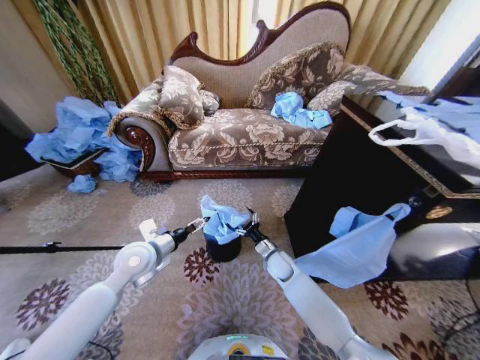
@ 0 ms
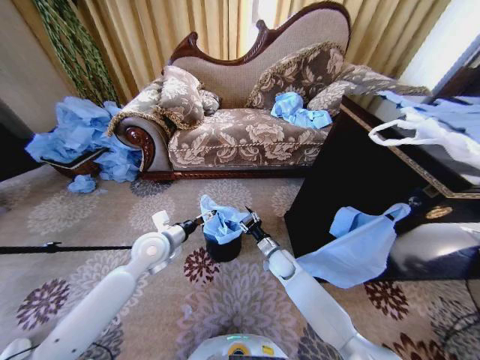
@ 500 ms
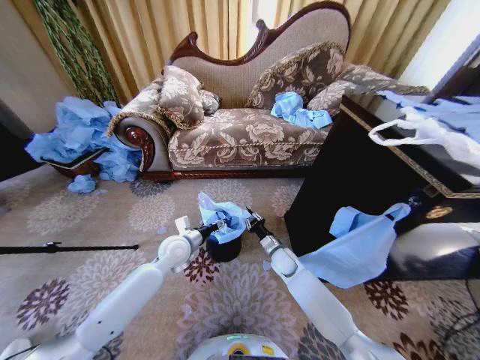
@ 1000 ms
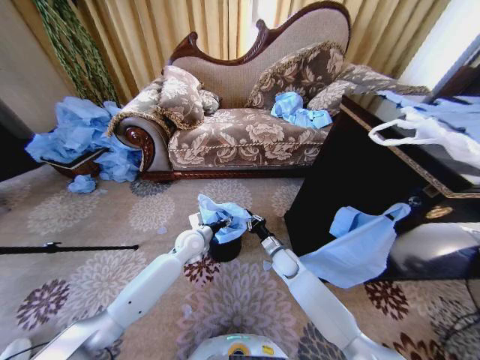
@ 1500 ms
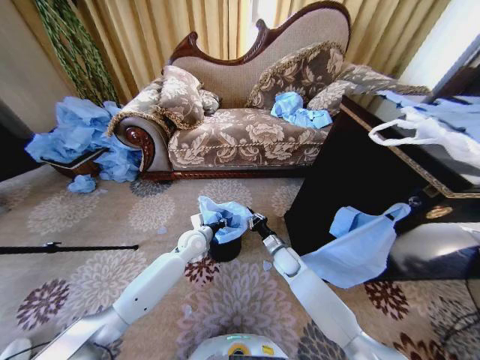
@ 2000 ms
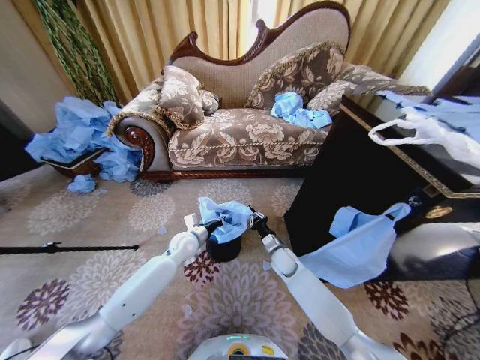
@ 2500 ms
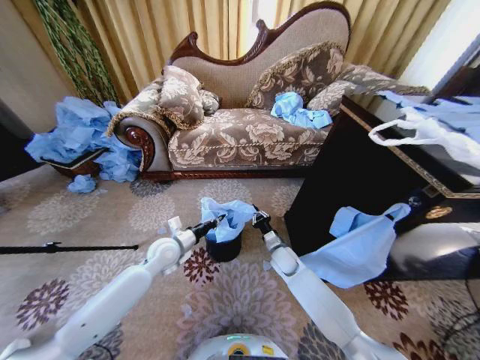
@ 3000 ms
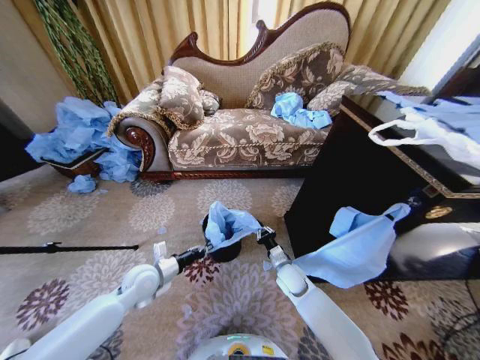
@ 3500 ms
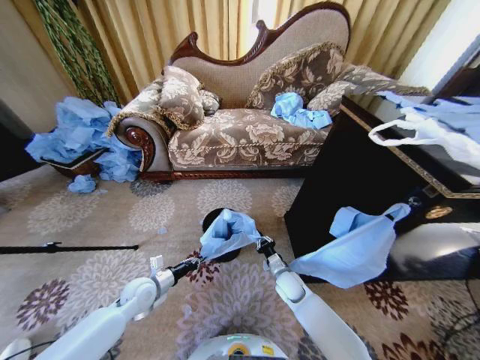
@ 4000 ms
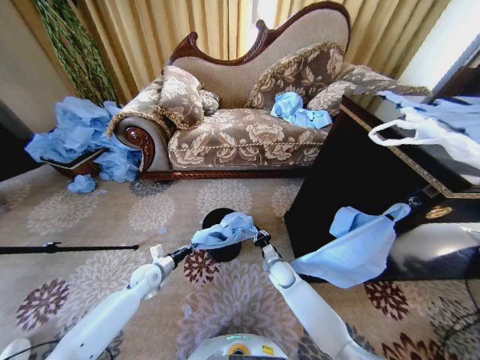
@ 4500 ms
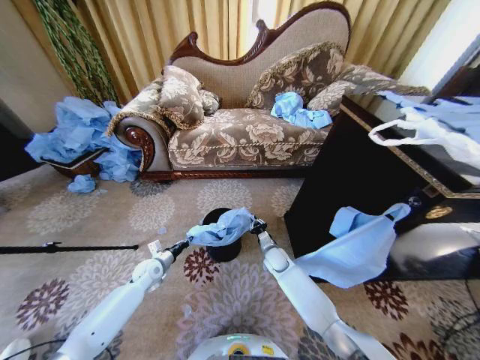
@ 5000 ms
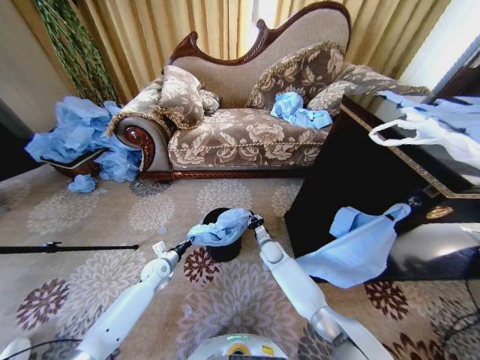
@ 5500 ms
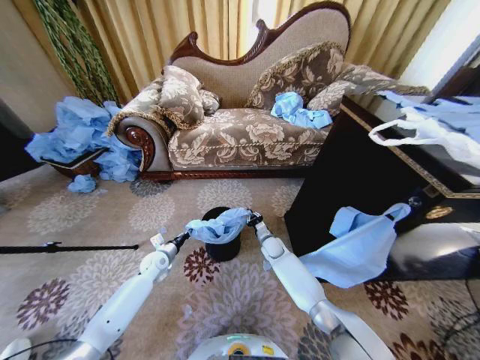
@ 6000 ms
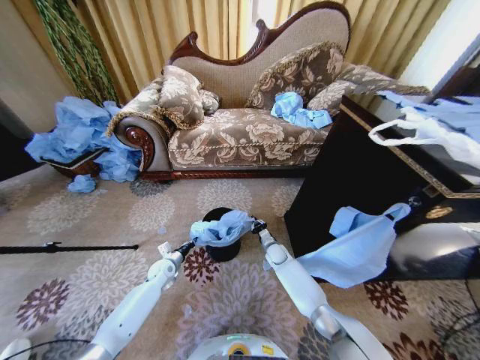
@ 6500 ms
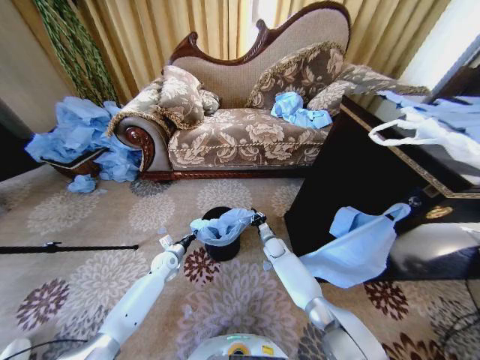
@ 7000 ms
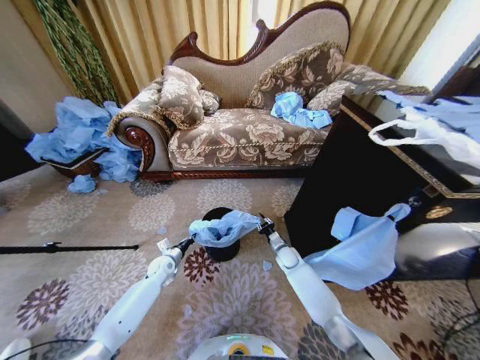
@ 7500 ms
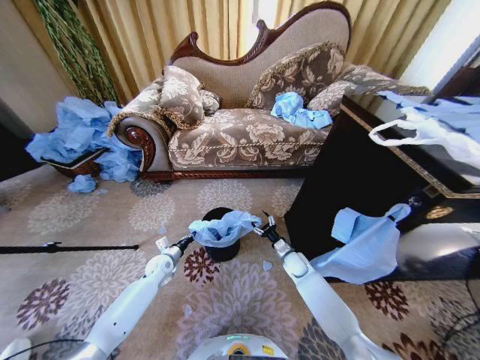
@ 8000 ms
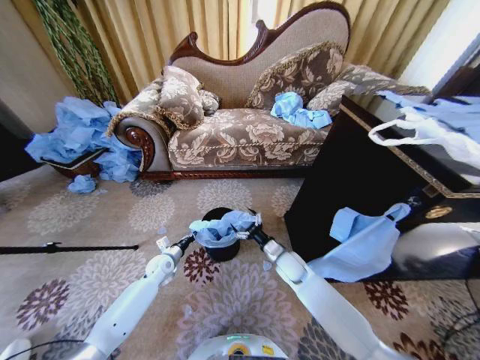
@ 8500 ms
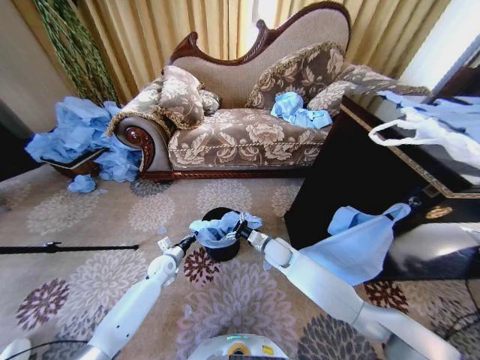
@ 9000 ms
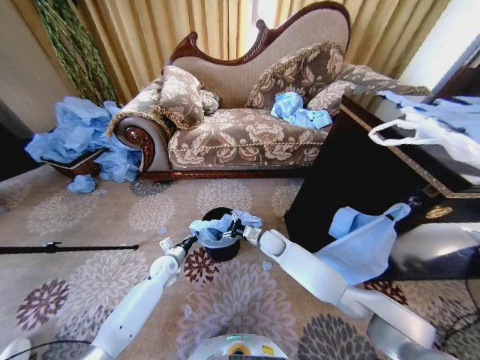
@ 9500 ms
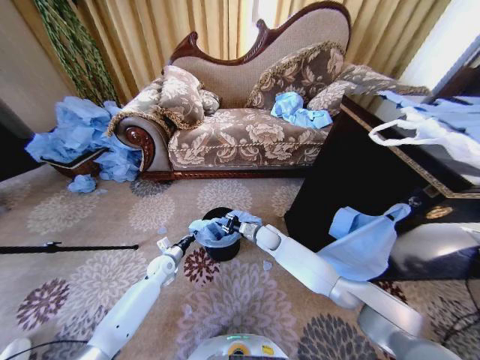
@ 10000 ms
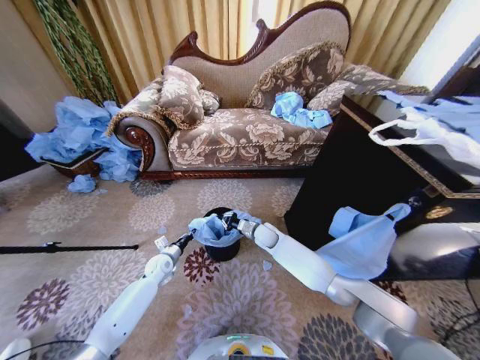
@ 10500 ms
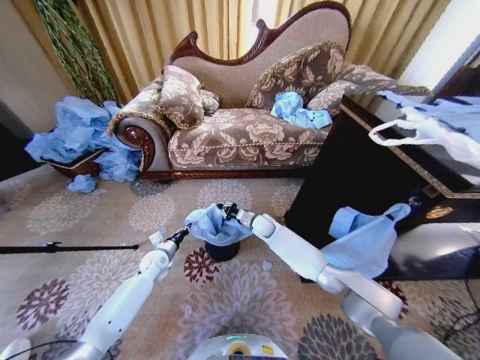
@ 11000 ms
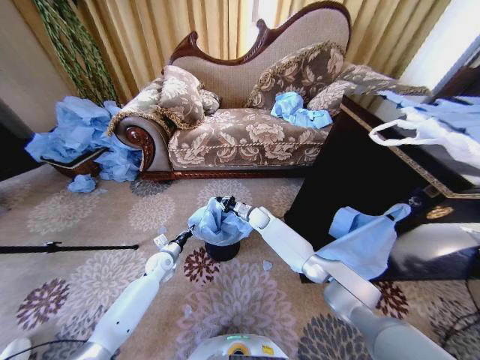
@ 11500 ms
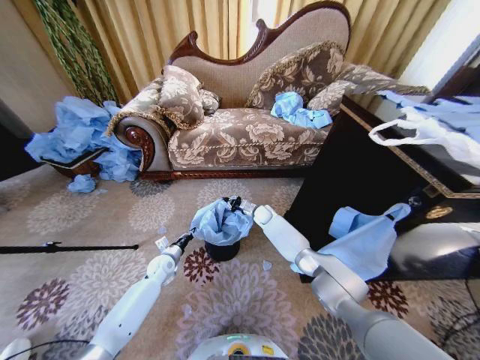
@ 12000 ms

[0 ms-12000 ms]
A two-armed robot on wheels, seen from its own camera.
Task of the whole recording: Place a garbage bag over the trash bin.
0 ms to 2000 ms: The right gripper closes, while the left gripper moves forward, downward and to the right, approximately 20 cm, and closes up.
2000 ms to 4000 ms: The right gripper shifts roughly 10 cm backward and downward, while the left gripper travels backward, to the left and downward by about 20 cm.
4000 ms to 6000 ms: Both grippers move forward, roughly 15 cm.
6000 ms to 8000 ms: The right gripper goes some 10 cm to the right and backward, and opens up.
8000 ms to 10000 ms: The right gripper travels to the left, upward and forward by approximately 15 cm, and closes.
10000 ms to 12000 ms: The right gripper is displaced forward by about 10 cm.

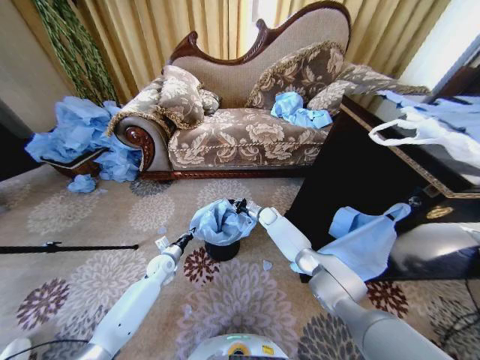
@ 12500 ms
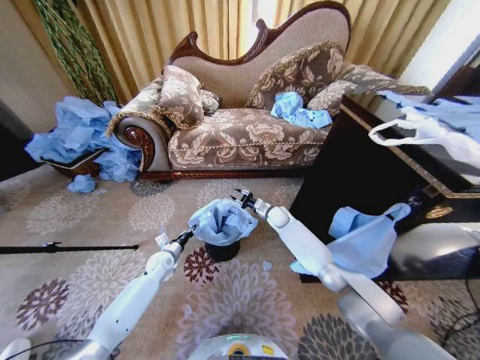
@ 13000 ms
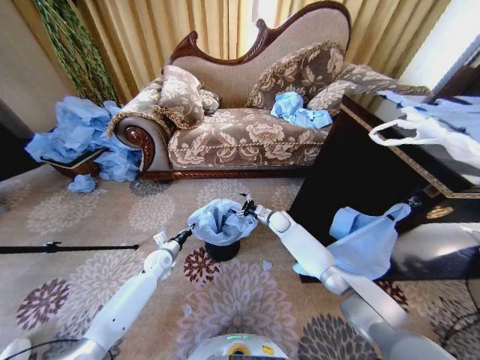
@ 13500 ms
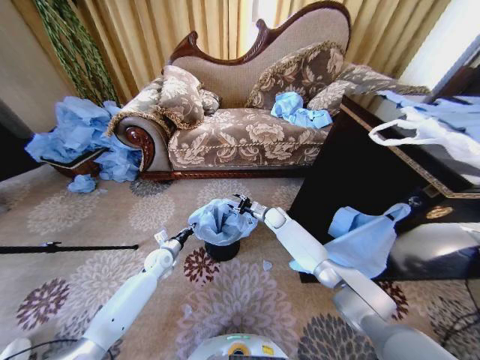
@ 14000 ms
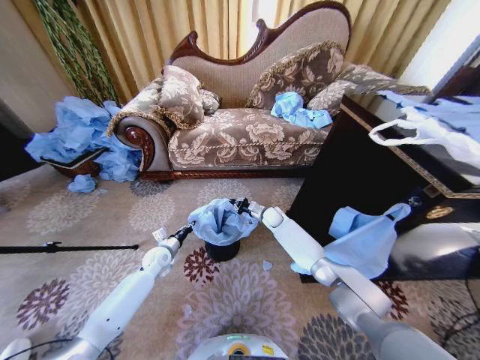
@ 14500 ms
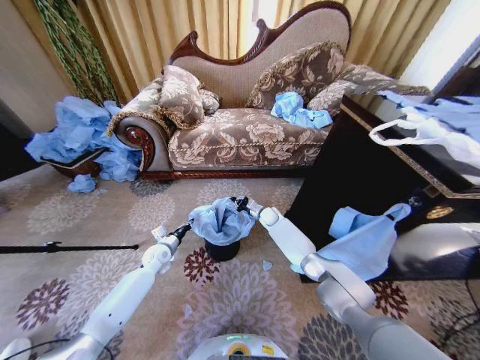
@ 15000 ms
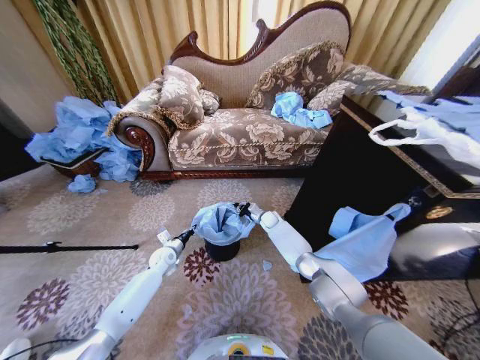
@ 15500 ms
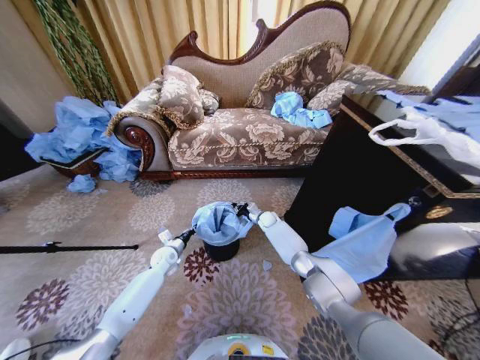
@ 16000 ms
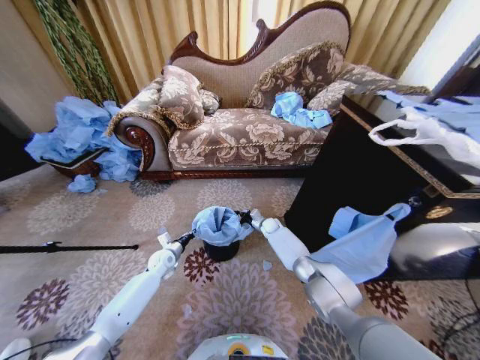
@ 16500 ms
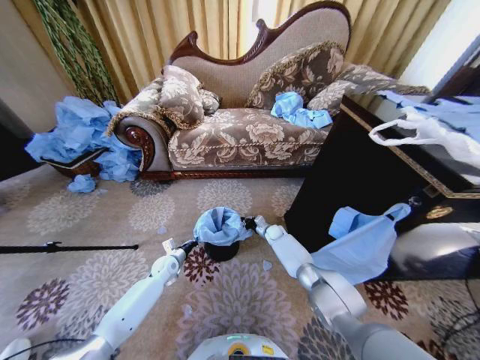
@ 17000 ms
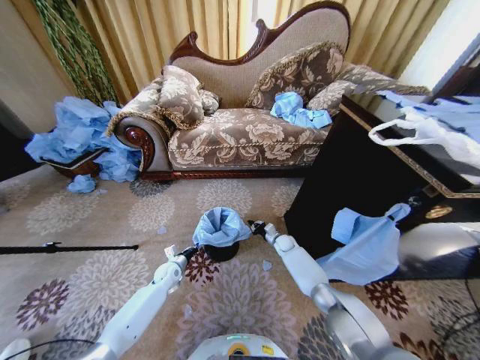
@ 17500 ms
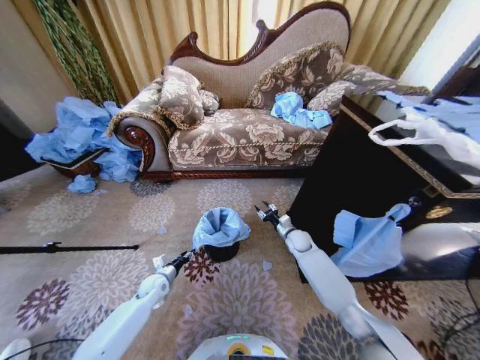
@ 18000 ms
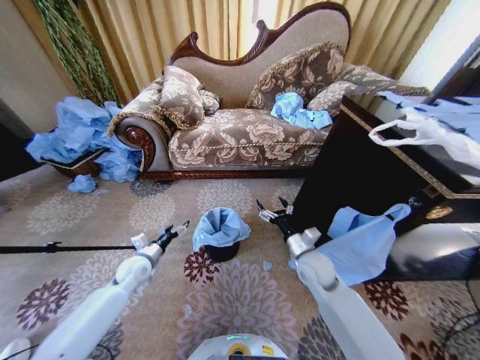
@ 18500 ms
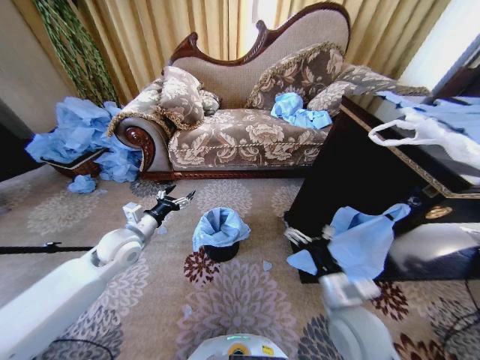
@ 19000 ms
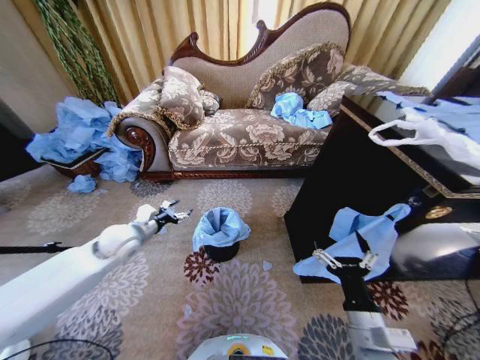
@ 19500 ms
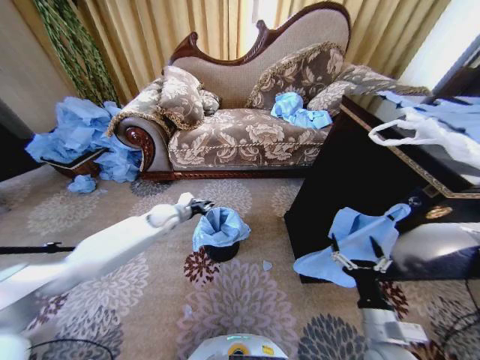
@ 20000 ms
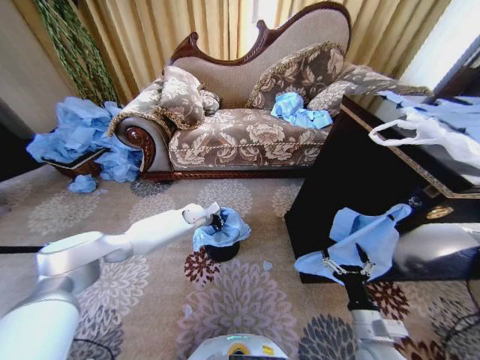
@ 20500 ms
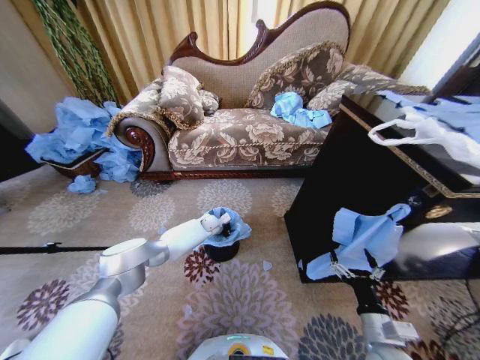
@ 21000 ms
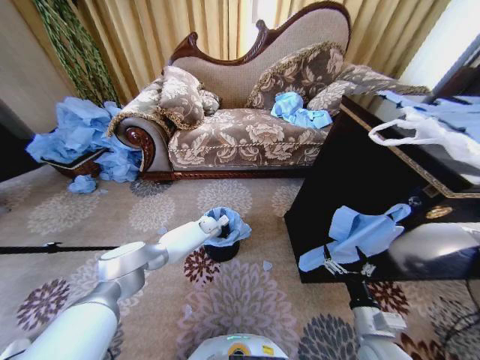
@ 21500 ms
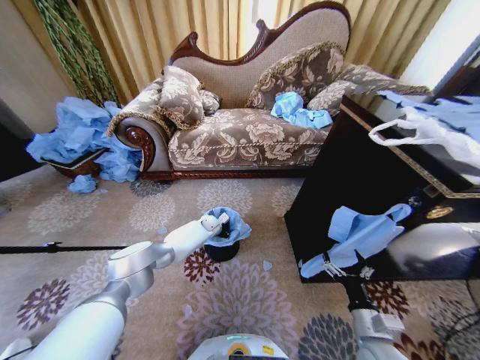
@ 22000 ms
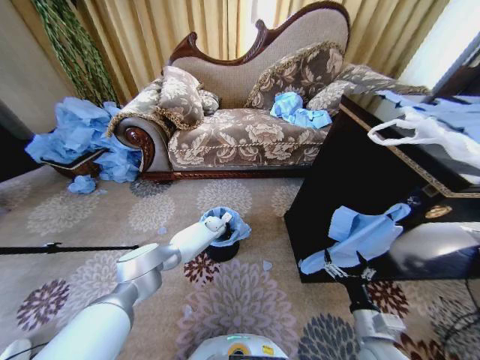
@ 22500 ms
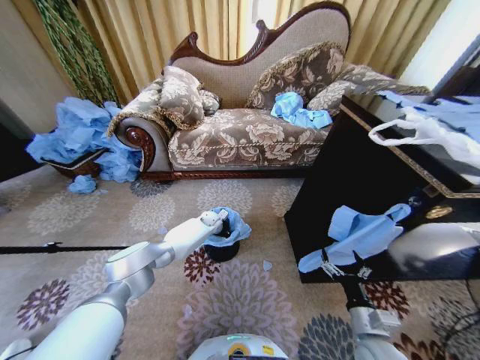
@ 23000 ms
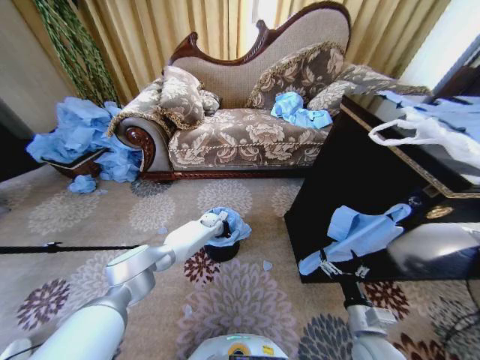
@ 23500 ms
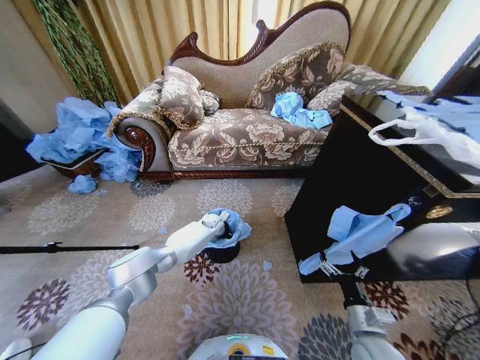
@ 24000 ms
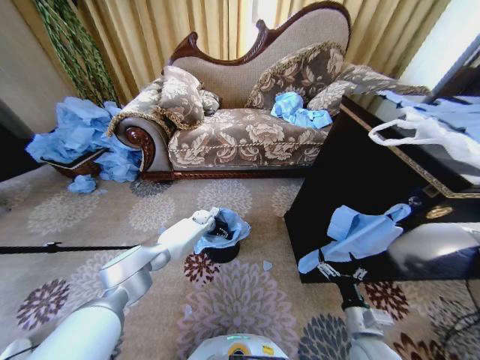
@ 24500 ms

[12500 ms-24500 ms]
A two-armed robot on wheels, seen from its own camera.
Task of the whole recording: Place a garbage bag over the trash bin.
12500 ms to 14500 ms: The right gripper opens and closes again.
14500 ms to 16500 ms: The right gripper moves downward, approximately 10 cm.
16500 ms to 18500 ms: The right gripper shifts some 30 cm backward and upward, and opens, while the left gripper goes roughly 10 cm upward and backward, and opens its fingers.
18500 ms to 20500 ms: The right gripper shifts roughly 20 cm backward and to the right. The left gripper is displaced forward and to the right by some 25 cm, and closes up.
20500 ms to 22500 ms: The left gripper goes approximately 10 cm downward and to the right.
22500 ms to 24500 ms: The left gripper shifts by roughly 5 cm, and opens.

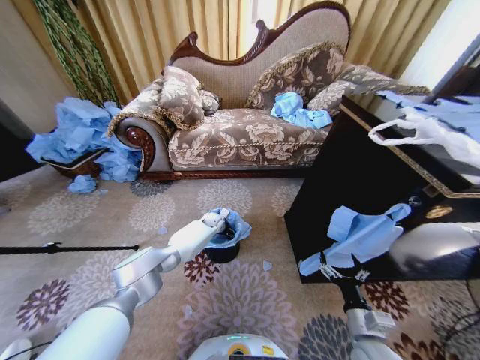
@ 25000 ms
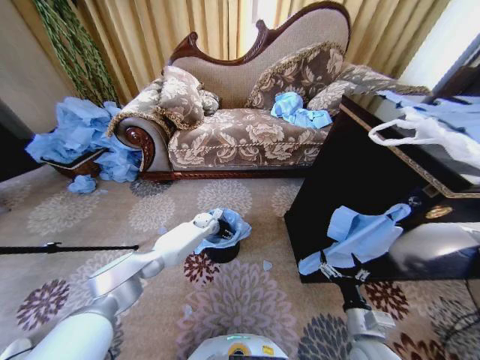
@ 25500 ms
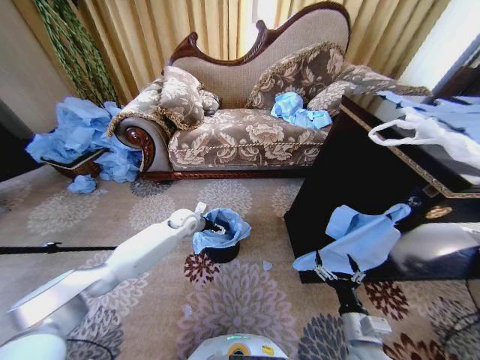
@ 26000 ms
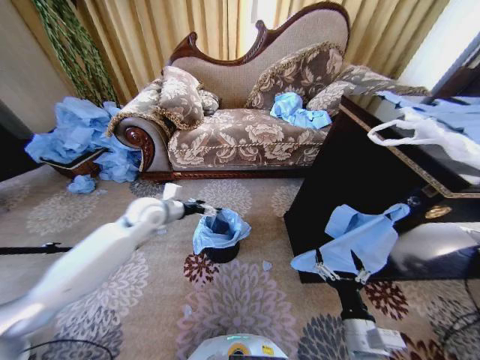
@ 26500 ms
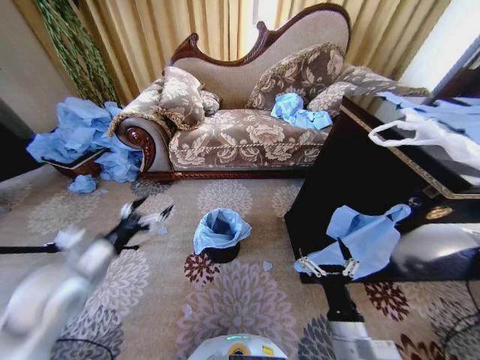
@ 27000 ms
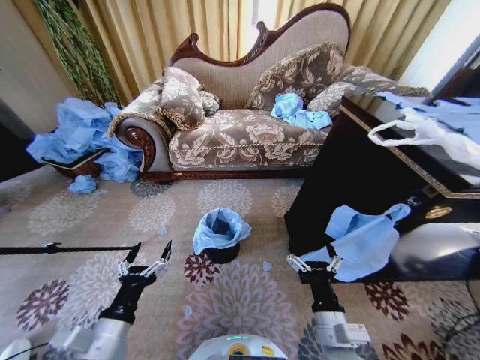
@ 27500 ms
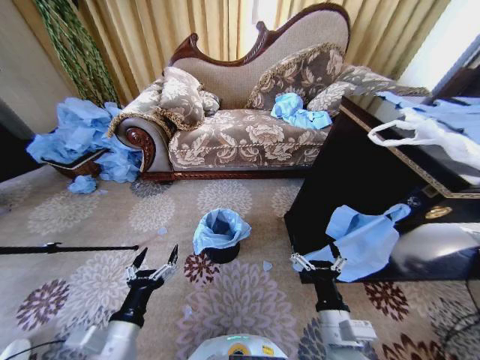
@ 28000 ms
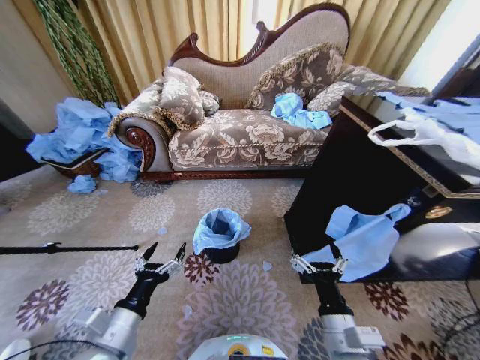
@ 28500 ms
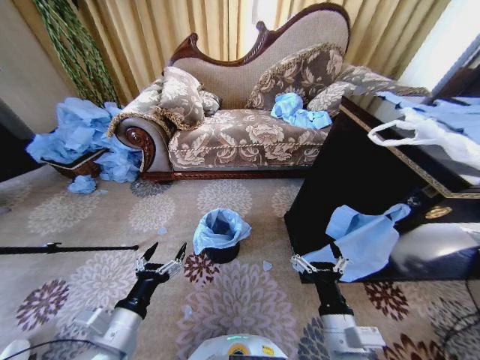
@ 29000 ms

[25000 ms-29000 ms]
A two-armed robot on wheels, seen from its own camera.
Task of the whole recording: Place a garbage bag over the trash bin.
25000 ms to 27000 ms: The right gripper travels upward and to the left by some 15 cm, while the left gripper travels backward, upward and to the left by approximately 50 cm.
27000 ms to 29000 ms: The left gripper travels backward, to the right and downward by about 20 cm.
